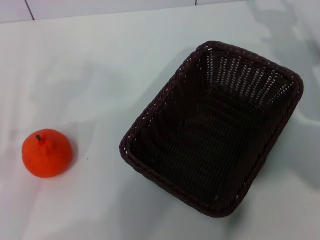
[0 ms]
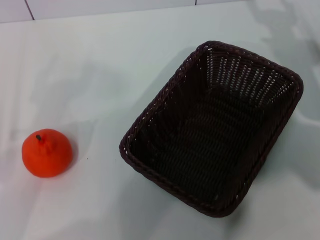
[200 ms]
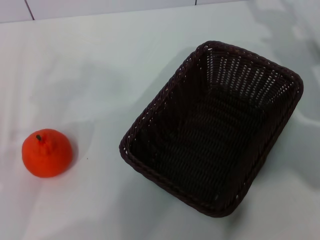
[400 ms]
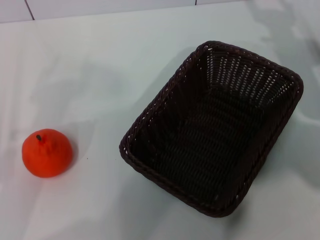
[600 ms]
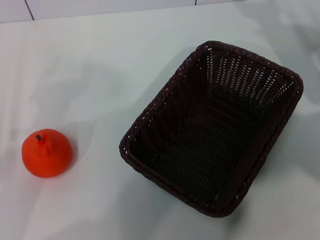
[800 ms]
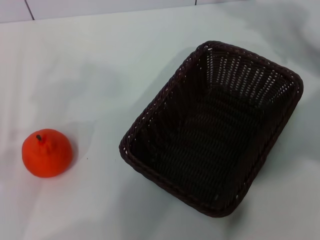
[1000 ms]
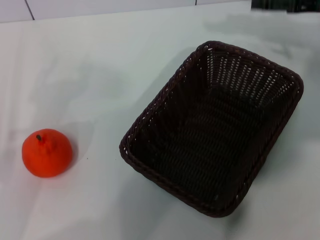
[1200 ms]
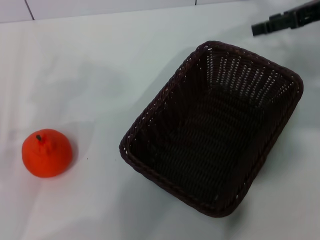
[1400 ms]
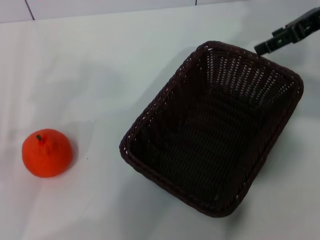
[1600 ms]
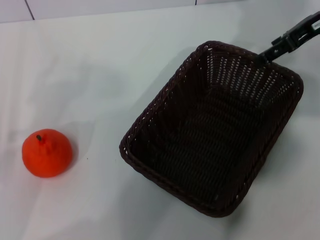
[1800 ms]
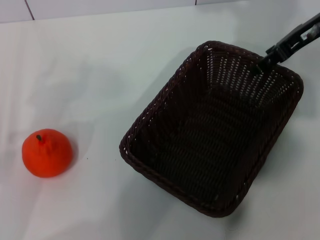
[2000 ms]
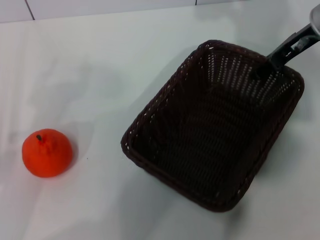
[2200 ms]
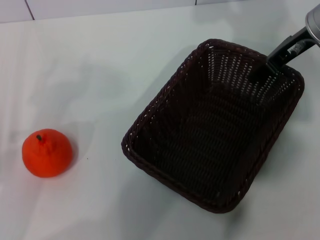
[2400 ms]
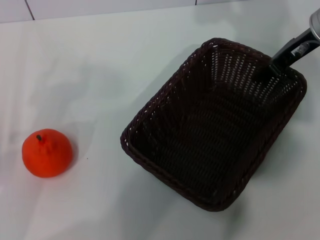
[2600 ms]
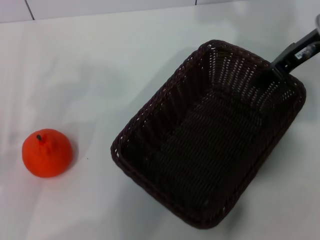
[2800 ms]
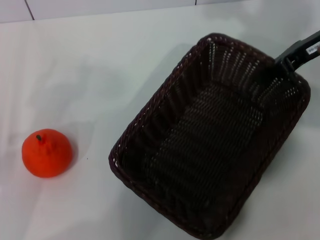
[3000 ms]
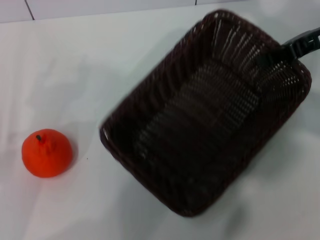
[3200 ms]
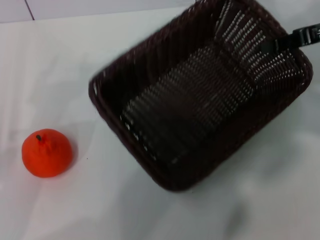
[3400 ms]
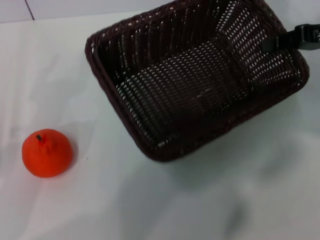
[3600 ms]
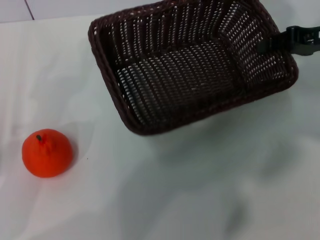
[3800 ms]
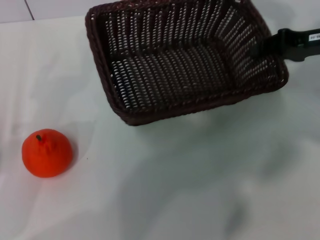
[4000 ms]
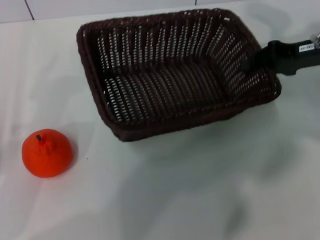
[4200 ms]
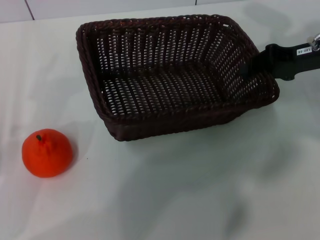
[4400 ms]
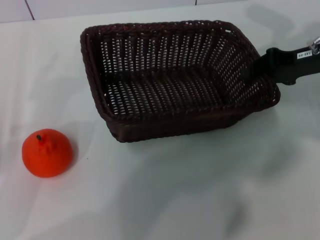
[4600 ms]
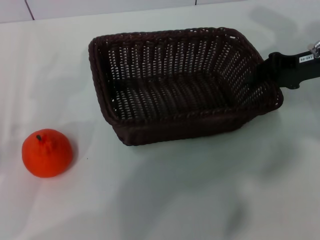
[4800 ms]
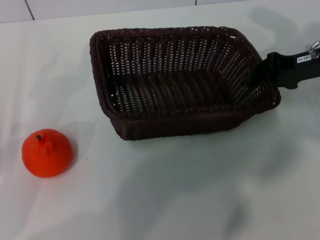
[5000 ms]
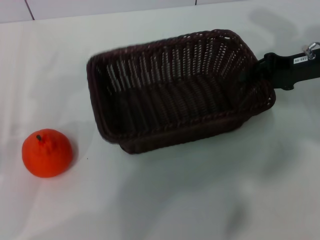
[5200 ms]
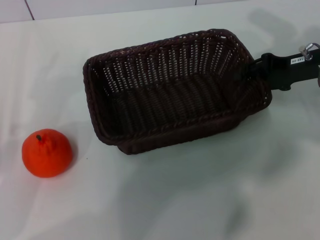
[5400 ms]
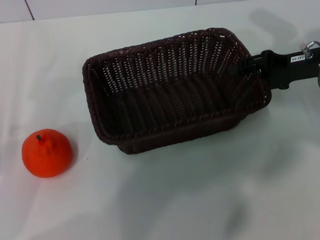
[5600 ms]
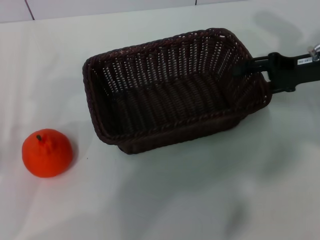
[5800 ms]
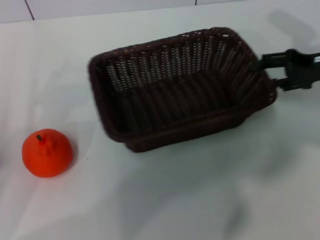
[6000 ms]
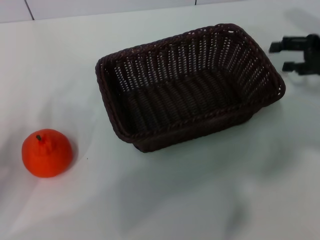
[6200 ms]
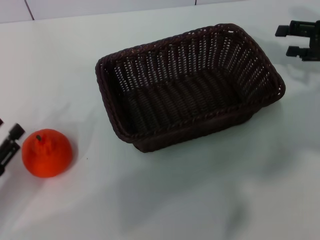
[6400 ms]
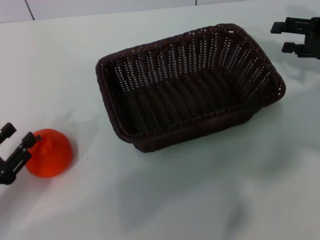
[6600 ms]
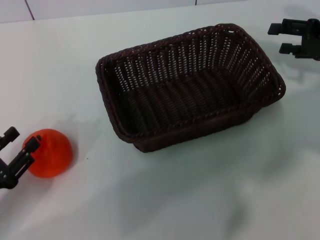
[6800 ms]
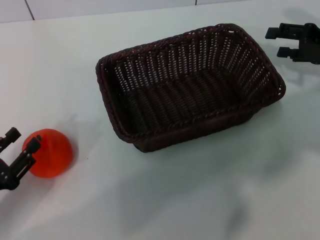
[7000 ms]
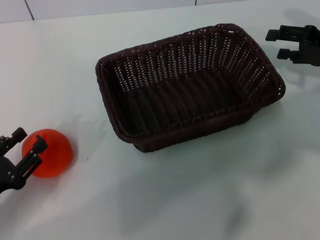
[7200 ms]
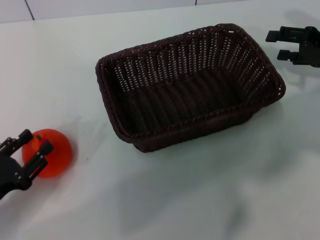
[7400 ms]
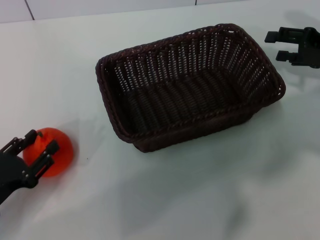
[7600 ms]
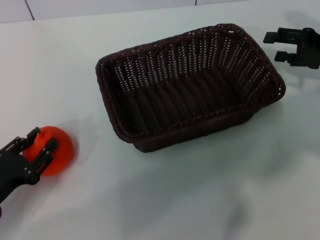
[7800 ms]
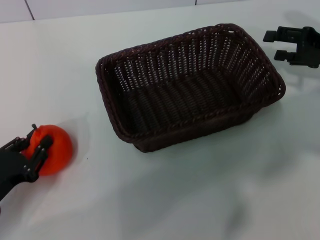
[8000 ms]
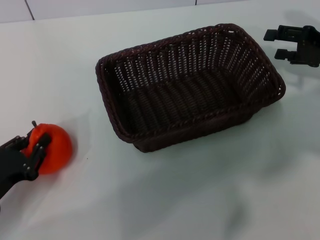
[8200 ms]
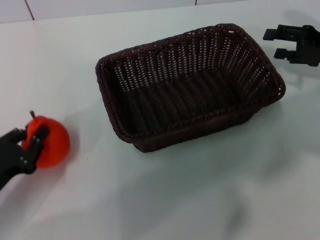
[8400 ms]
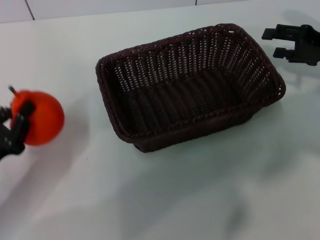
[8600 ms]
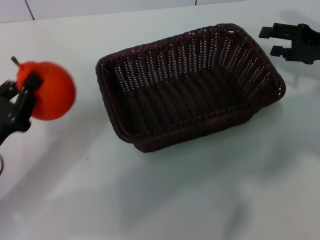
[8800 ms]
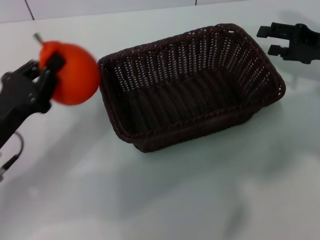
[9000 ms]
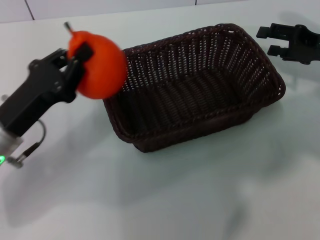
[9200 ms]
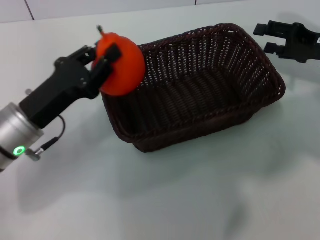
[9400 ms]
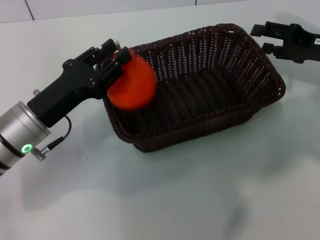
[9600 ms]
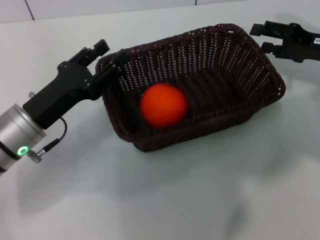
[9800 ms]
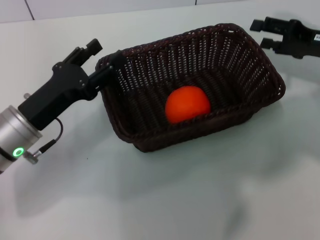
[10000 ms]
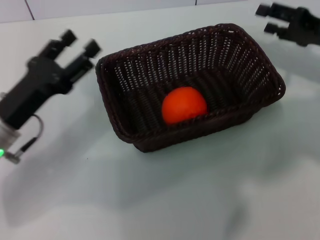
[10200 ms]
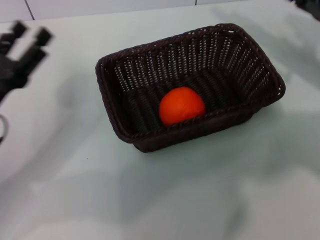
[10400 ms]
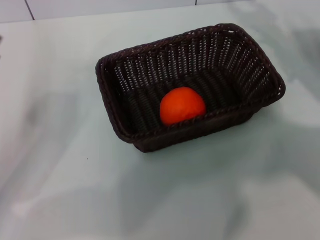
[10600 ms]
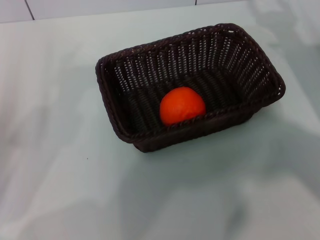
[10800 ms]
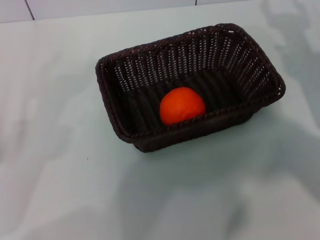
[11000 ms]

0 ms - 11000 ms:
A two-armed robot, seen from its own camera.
Task of the whole recording: the right gripper pick up the black basket and place it horizontally in the middle of the table, the left gripper pick up the orange and place it into the black basket.
Step, 0 ms - 3400 ms: Pick up the dark basket with the right gripper.
Step, 3800 ms - 6000 ms: Place the dark basket in the center of view with the right gripper.
Step, 6400 ms - 8400 ms: Pick up the orange with the left gripper.
Step, 8600 ms - 9800 ms: Place the orange into the dark basket with the left gripper.
0 ms - 1600 ms: The right gripper goes roughly 15 cm upward.
1600 ms - 3200 ms: The right gripper closes its fingers.
3200 ms - 4800 ms: The right gripper goes about 5 cm downward.
4800 ms - 6200 ms: The right gripper moves to the right, about 5 cm, and opens up.
6200 ms - 7800 ms: The left gripper ends up roughly 5 cm from where it was.
7800 ms - 9400 ms: The left gripper heads forward, to the right and upward, covering roughly 15 cm, and closes.
9400 ms - 11000 ms: The left gripper goes some 15 cm to the left and backward, and opens up.
